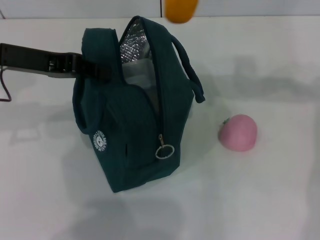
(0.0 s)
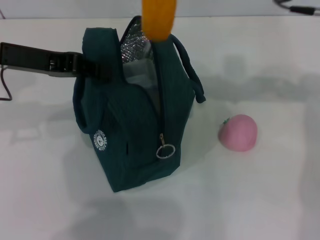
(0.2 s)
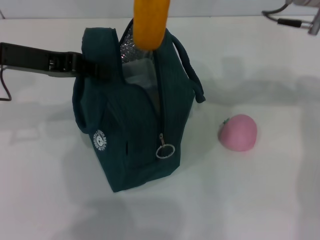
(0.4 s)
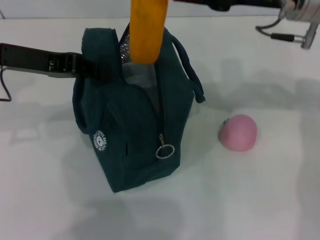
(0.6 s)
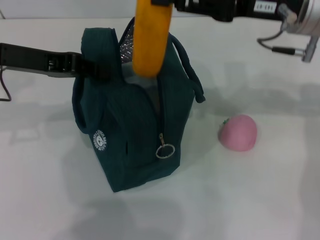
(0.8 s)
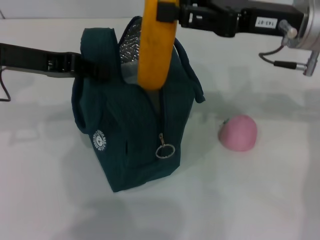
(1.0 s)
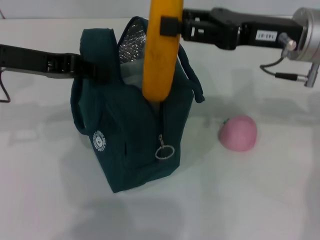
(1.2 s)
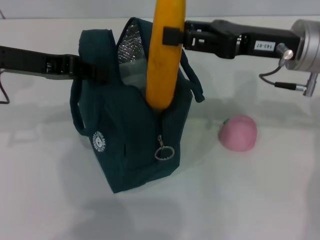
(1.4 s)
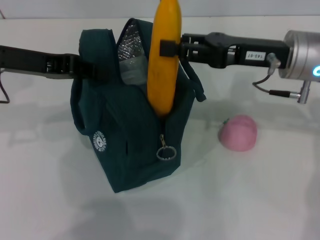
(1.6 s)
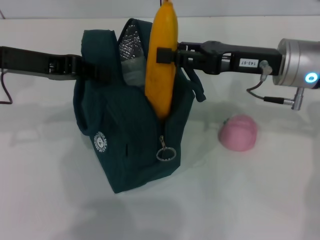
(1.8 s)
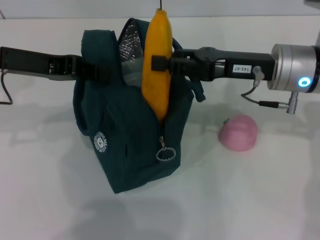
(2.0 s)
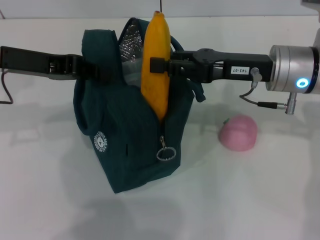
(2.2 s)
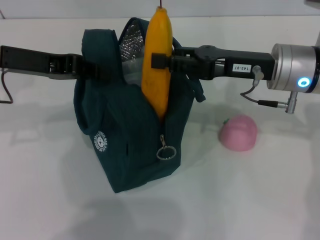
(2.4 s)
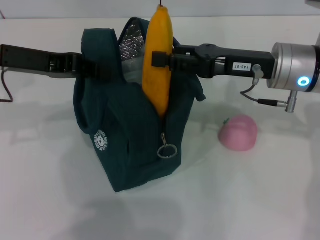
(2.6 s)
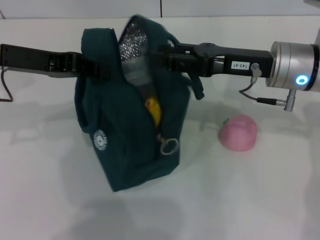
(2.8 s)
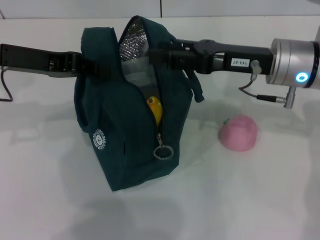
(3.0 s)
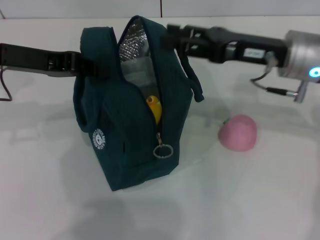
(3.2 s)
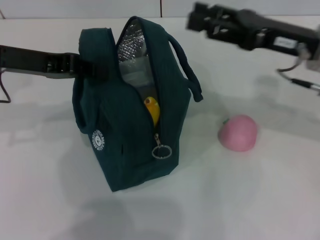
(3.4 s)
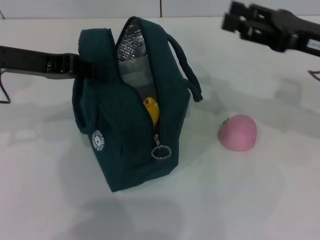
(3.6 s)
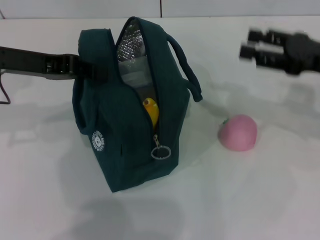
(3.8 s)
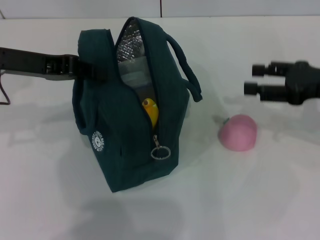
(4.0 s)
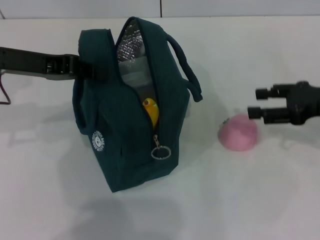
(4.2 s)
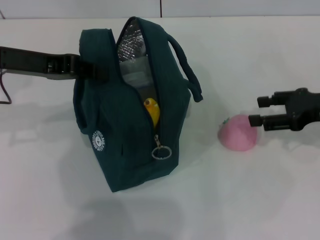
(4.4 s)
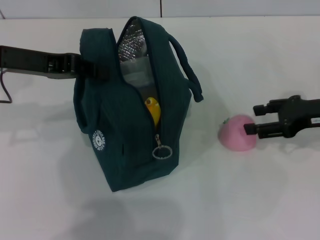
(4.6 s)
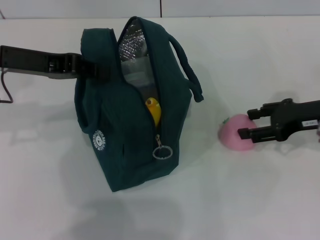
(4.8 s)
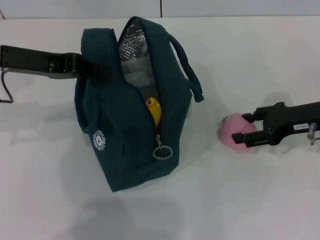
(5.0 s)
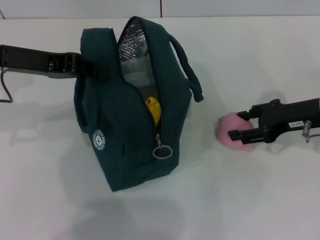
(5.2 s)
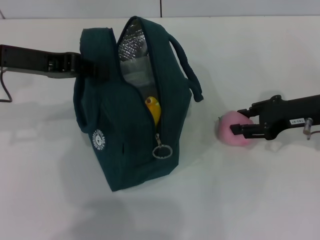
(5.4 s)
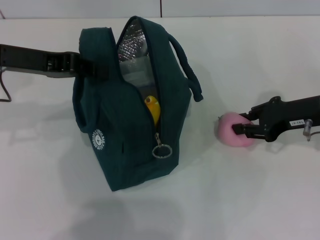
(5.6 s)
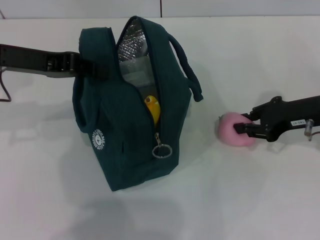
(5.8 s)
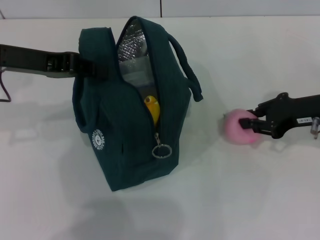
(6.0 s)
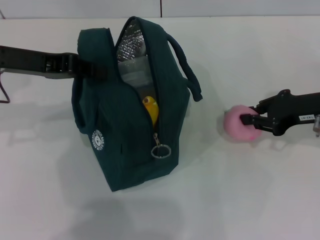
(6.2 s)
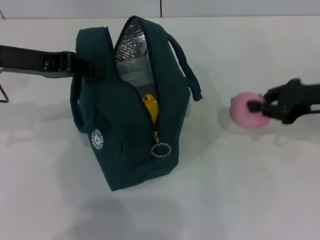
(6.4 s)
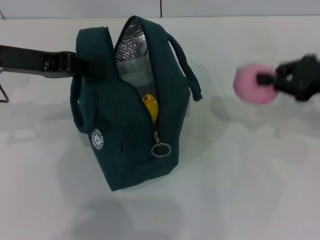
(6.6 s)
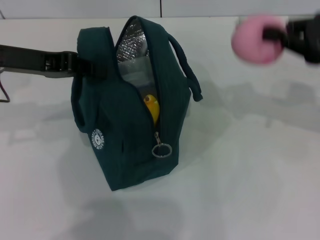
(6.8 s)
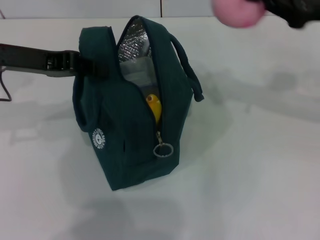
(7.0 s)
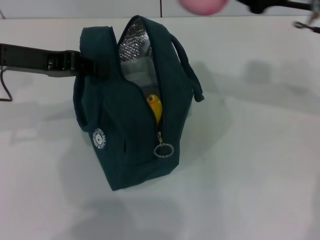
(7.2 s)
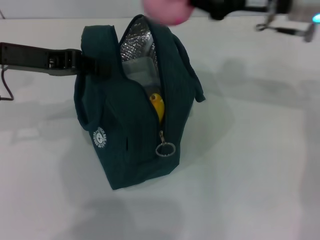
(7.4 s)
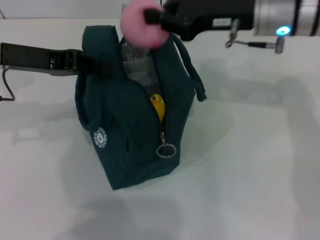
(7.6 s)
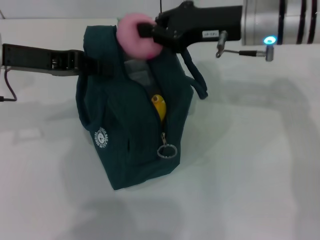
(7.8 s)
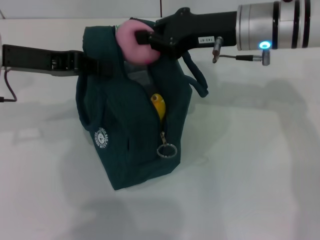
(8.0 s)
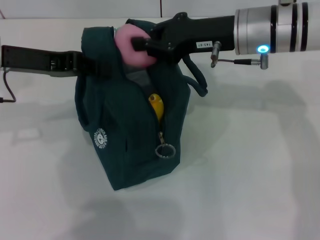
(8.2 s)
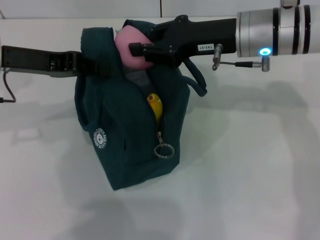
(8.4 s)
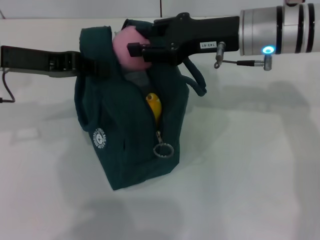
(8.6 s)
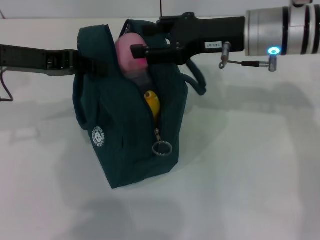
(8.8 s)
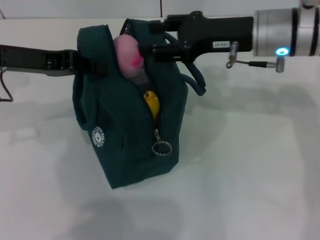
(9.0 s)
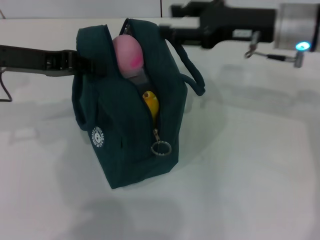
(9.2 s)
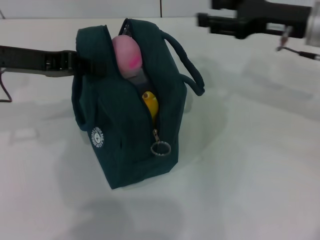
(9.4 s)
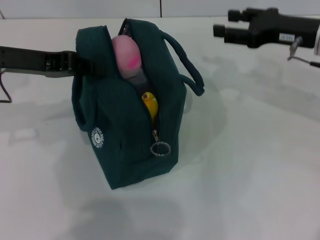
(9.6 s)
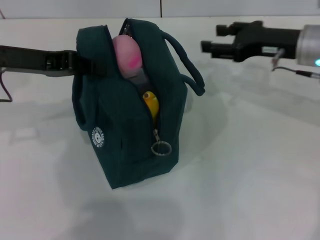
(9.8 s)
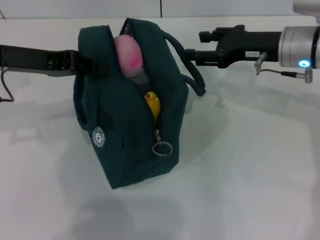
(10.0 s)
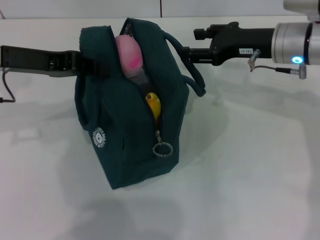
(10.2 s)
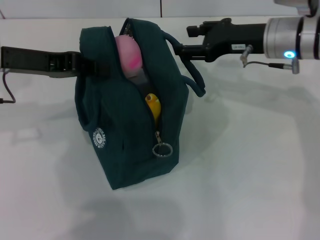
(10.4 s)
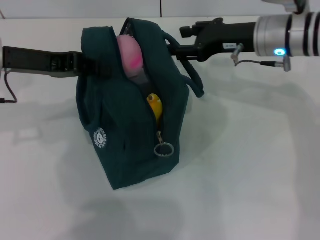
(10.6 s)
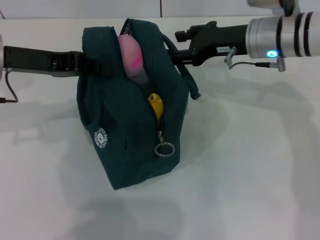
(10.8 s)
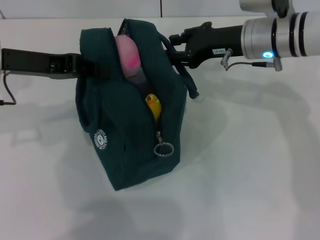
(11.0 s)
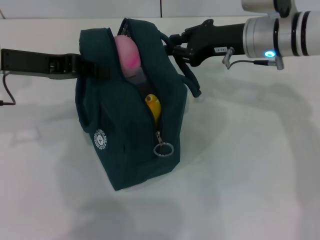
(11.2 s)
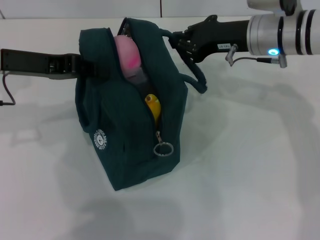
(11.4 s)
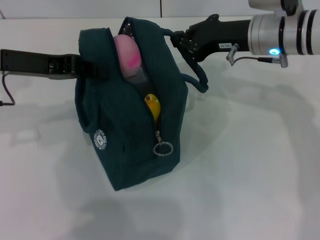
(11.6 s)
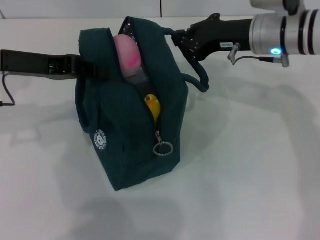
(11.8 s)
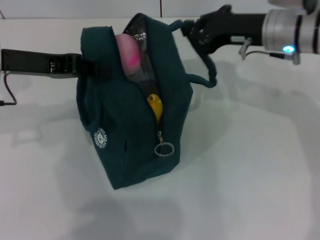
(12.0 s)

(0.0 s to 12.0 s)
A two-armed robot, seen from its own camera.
Step, 0.0 s - 3.0 s: Put the banana into the lunch bag with your right hand.
Step, 3.2 s - 5.6 s: Grab the peach with your right hand.
0.0 s - 1.6 s: The right gripper moves downward, approximately 15 cm.
1.6 s - 3.0 s: The grippers stay close to where they were, moving slightly.
3.0 s - 4.4 s: The right gripper goes roughly 15 cm to the right.
4.4 s - 6.0 s: The right gripper closes.
6.0 s - 7.6 s: The right gripper is displaced to the left, upward and forward by about 15 cm.
7.6 s - 9.0 s: The right gripper opens.
9.0 s - 10.4 s: The right gripper reaches about 10 cm to the right, then returns.
10.4 s - 12.0 s: The right gripper closes its fingers.

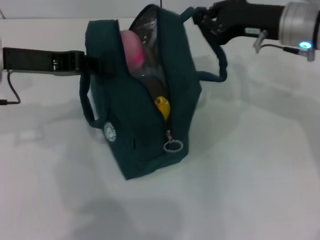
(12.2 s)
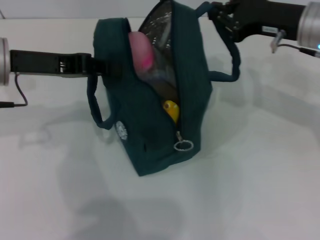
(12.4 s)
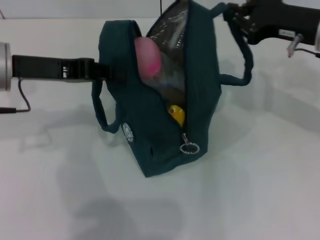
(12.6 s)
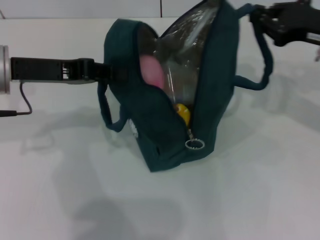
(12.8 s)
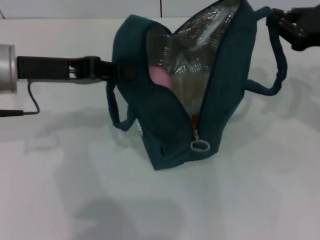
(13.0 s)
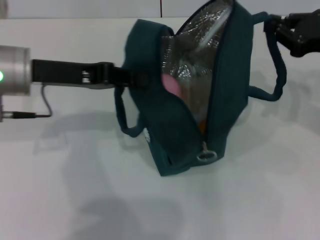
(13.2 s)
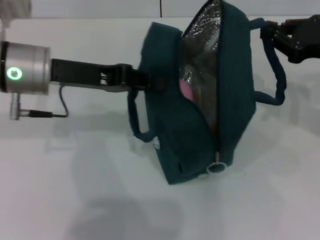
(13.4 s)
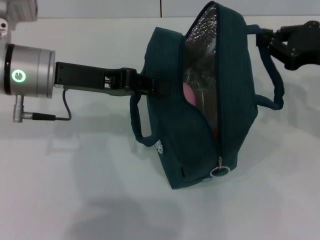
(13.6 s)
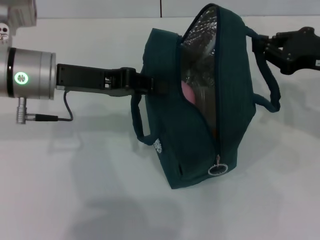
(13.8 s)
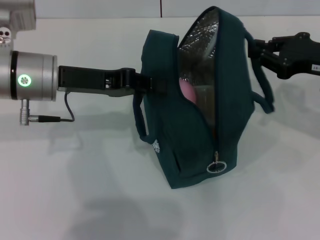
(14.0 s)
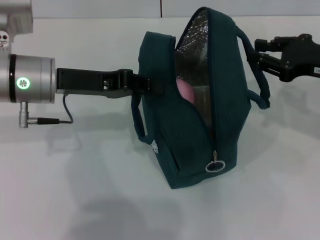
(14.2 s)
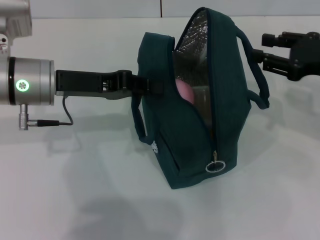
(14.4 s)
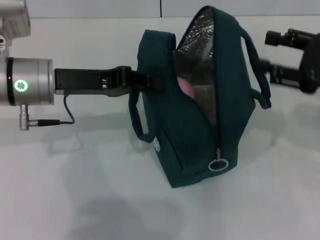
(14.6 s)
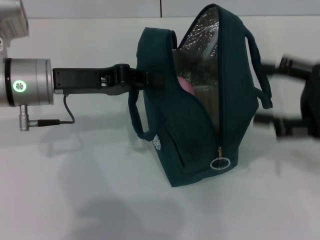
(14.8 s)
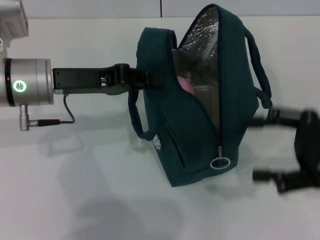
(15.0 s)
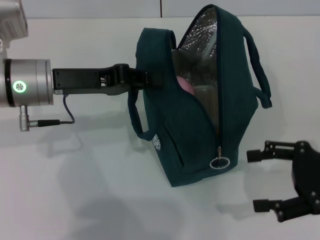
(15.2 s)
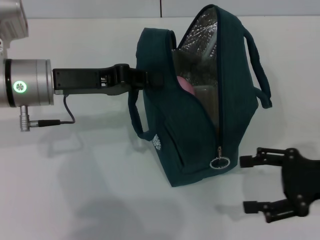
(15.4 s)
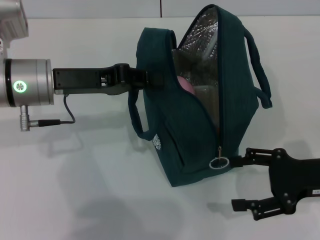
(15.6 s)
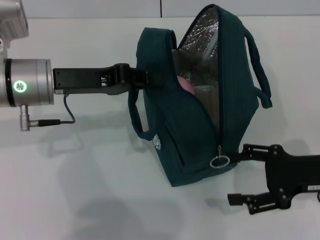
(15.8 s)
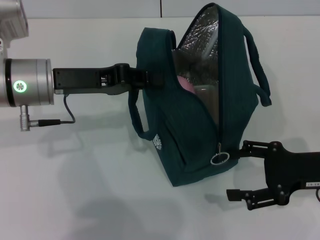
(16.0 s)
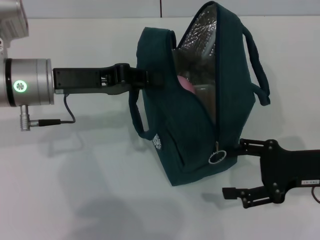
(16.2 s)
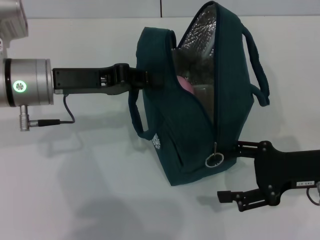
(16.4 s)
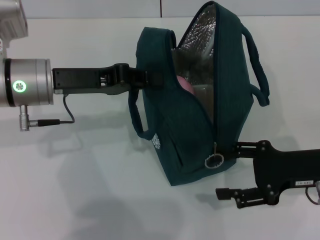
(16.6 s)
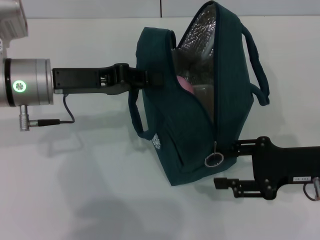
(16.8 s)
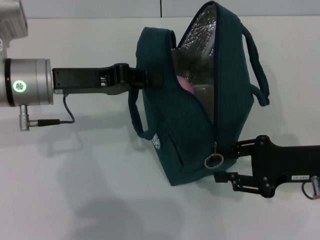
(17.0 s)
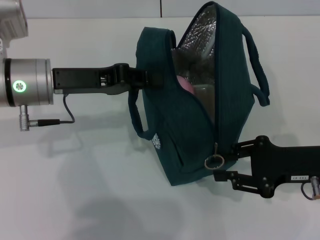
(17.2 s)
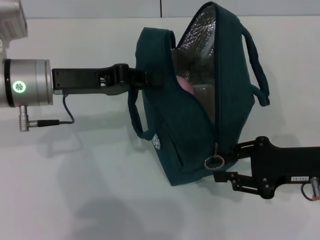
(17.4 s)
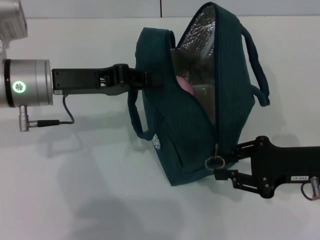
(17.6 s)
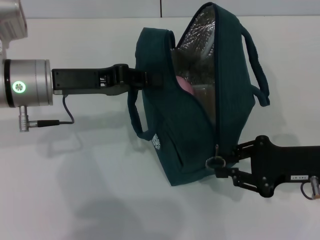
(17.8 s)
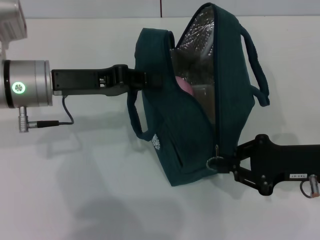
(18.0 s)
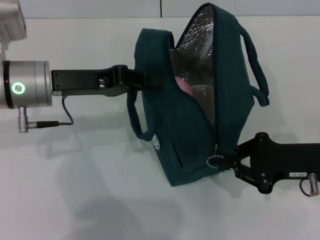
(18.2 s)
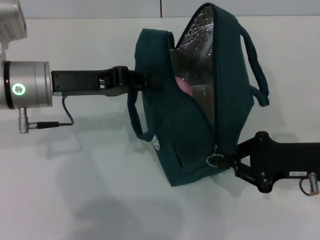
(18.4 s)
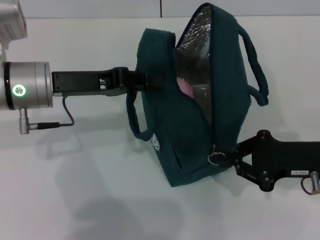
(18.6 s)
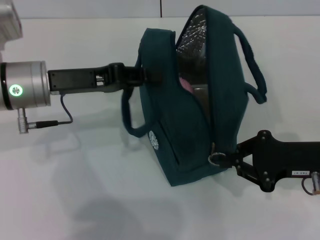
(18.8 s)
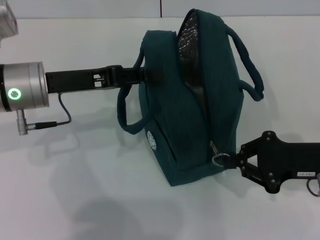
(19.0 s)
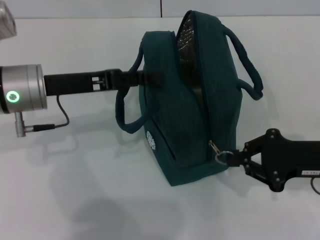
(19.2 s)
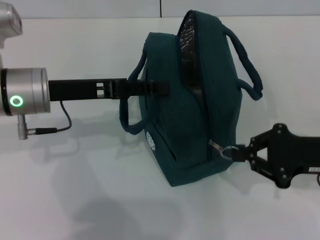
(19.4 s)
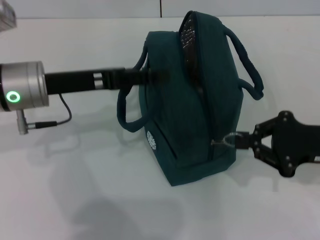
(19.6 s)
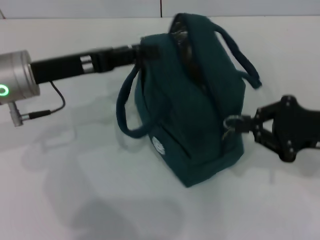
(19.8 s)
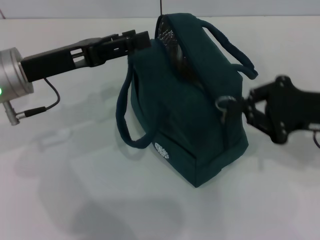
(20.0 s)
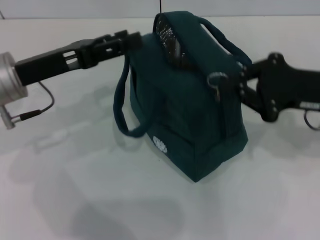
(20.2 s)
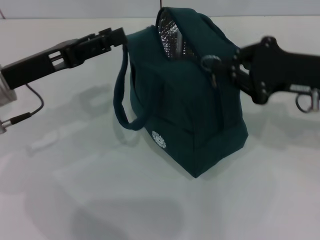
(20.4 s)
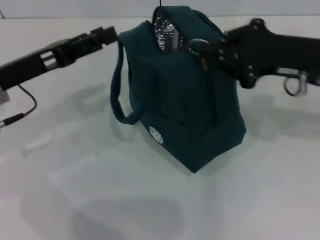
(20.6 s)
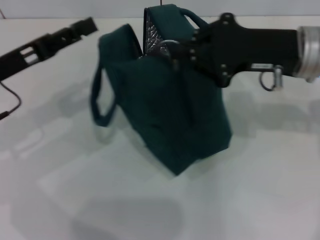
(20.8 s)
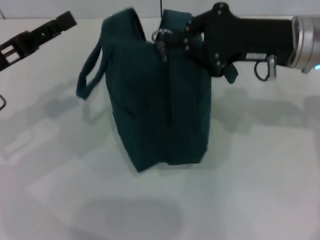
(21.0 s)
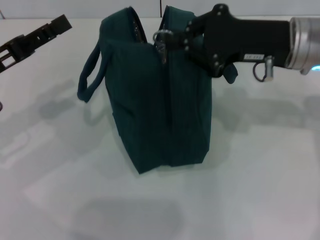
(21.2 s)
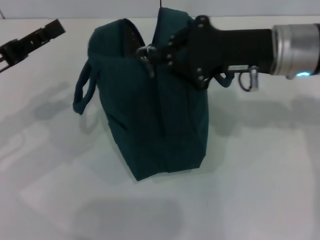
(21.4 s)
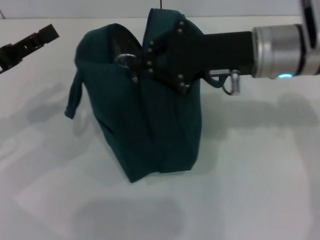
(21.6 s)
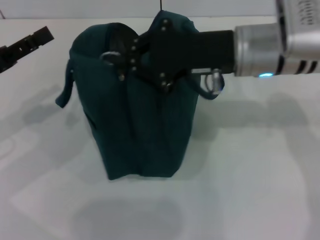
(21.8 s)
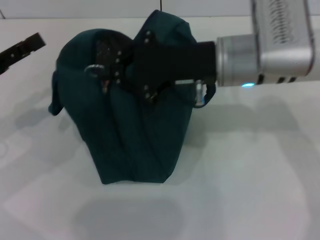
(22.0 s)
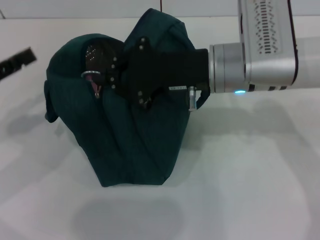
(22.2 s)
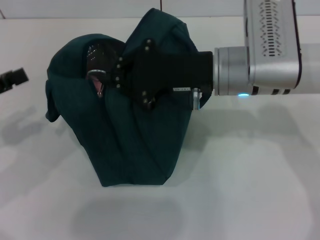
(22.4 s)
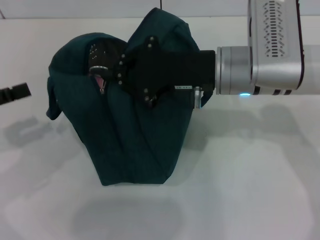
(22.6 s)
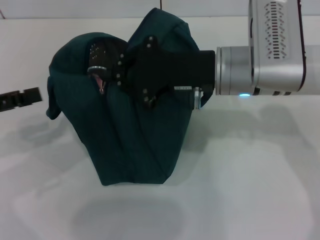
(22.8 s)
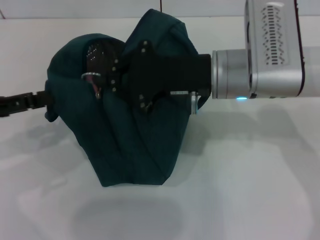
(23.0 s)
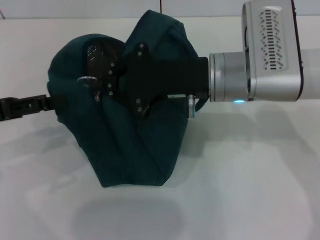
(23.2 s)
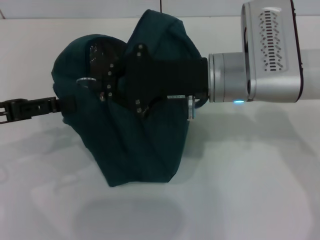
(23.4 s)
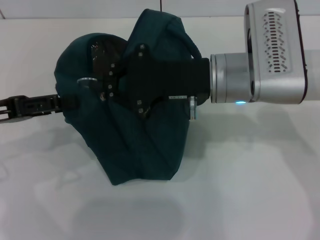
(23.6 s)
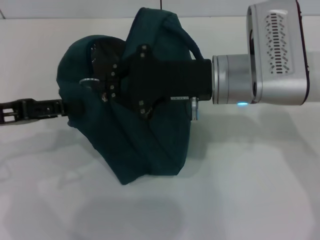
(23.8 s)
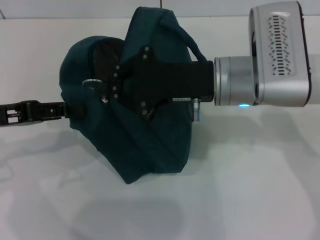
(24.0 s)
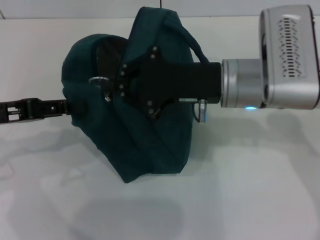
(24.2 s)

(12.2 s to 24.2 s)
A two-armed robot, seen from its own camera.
Step, 12.2 s - 14.4 s: Hold the lunch bag with your right hand.
12.2 s - 13.8 s: The right gripper moves to the right and backward, about 10 cm, while the left gripper goes about 5 cm to the right.
13.8 s - 15.2 s: The right gripper goes about 10 cm backward, and opens.
15.2 s - 16.6 s: The right gripper shifts by approximately 5 cm.
16.6 s - 18.2 s: The right gripper closes up.
18.2 s - 19.8 s: The left gripper opens its fingers.
19.8 s - 21.2 s: The left gripper heads to the left, covering about 10 cm. Meanwhile the right gripper is displaced to the left, forward and upward by some 15 cm.
21.2 s - 22.6 s: The left gripper travels to the left and backward by some 10 cm; the right gripper shifts about 10 cm to the left.
22.6 s - 24.2 s: The left gripper heads to the right, covering approximately 5 cm, and closes up.
